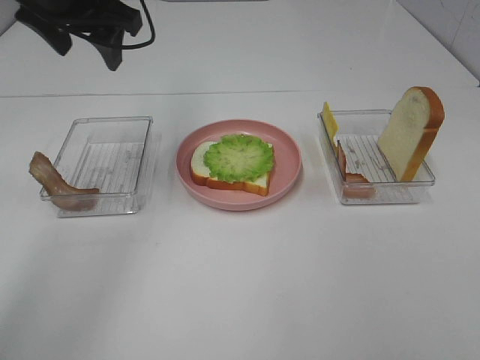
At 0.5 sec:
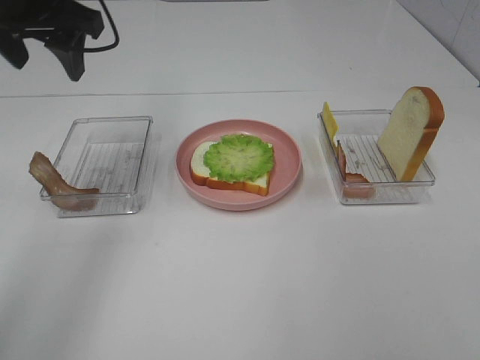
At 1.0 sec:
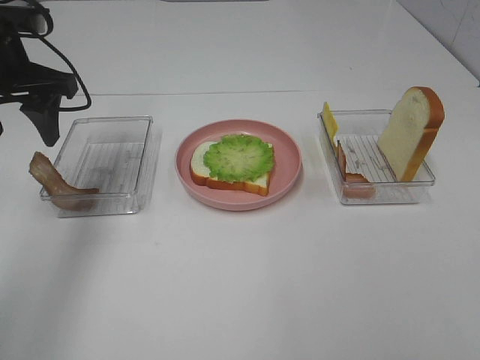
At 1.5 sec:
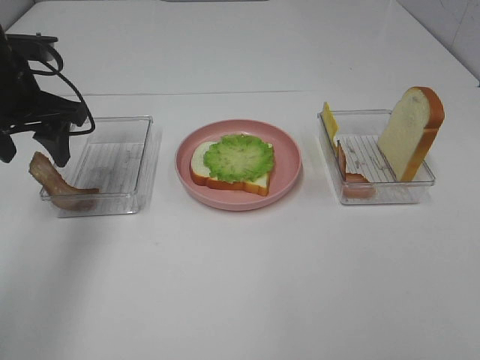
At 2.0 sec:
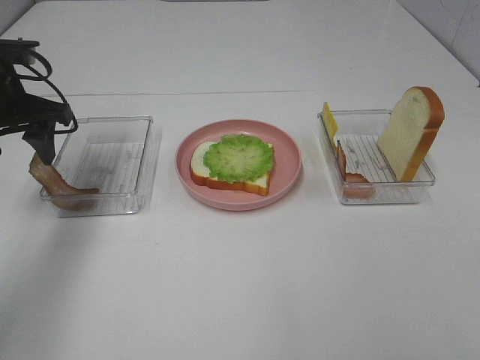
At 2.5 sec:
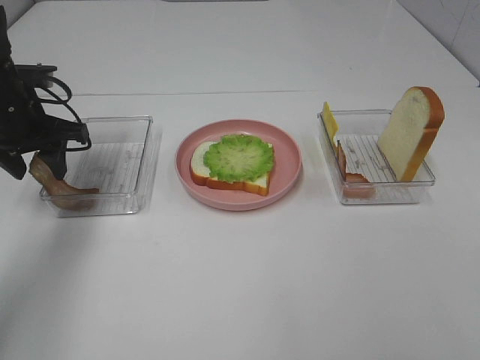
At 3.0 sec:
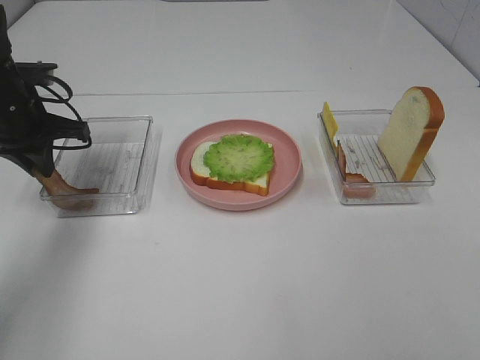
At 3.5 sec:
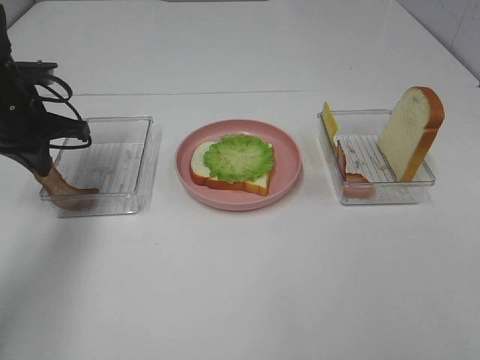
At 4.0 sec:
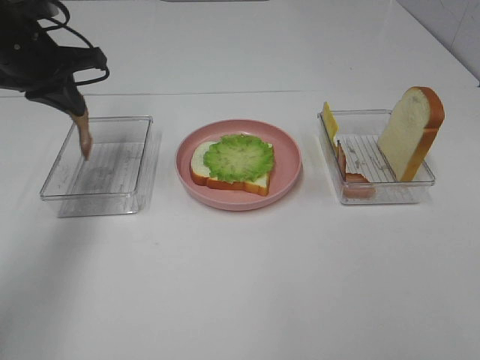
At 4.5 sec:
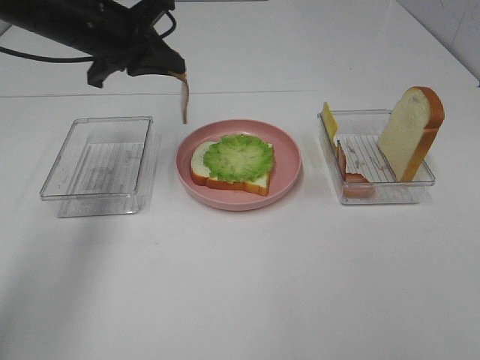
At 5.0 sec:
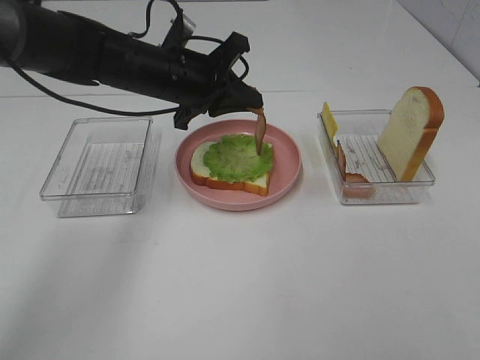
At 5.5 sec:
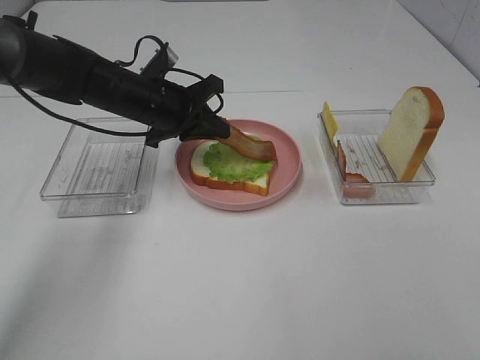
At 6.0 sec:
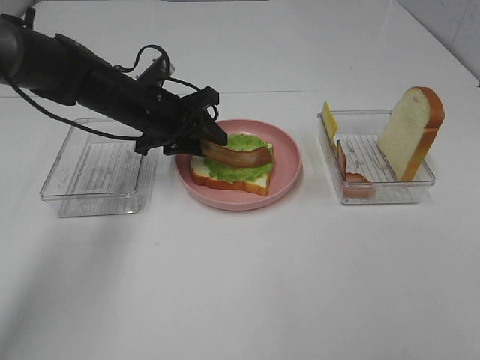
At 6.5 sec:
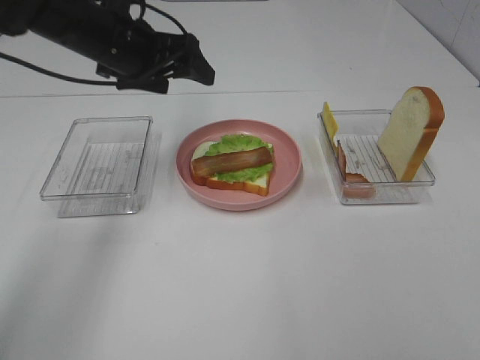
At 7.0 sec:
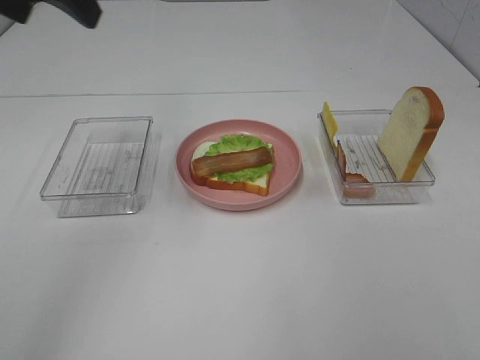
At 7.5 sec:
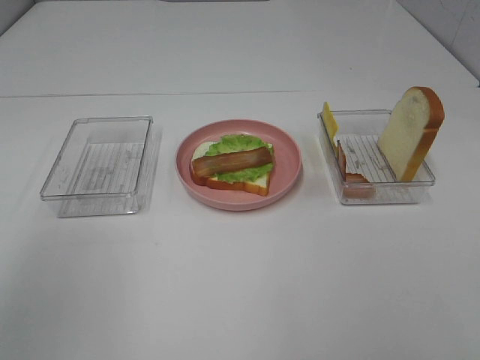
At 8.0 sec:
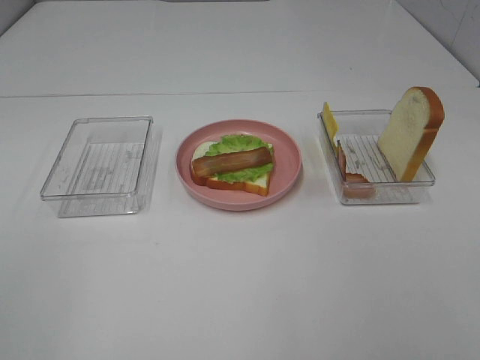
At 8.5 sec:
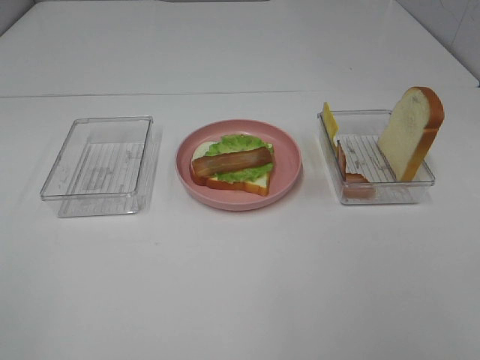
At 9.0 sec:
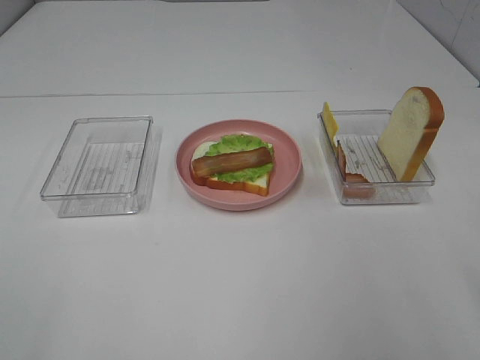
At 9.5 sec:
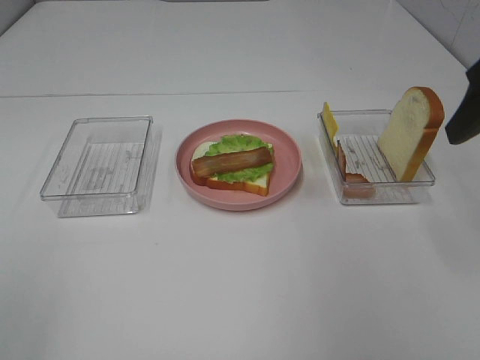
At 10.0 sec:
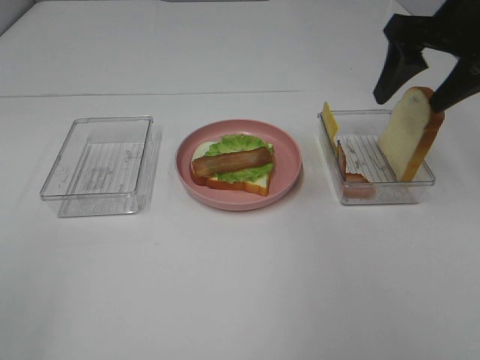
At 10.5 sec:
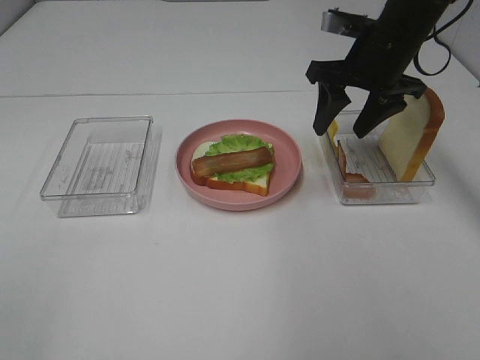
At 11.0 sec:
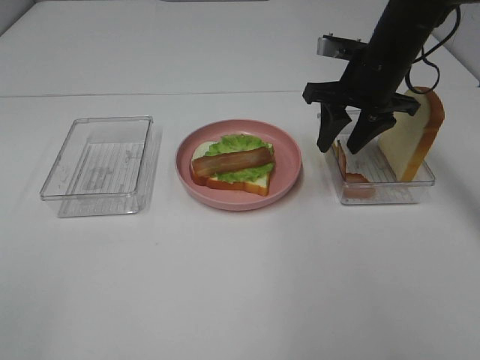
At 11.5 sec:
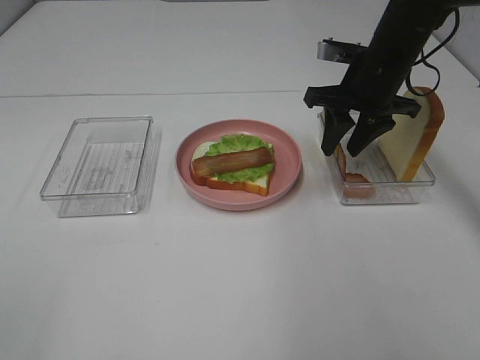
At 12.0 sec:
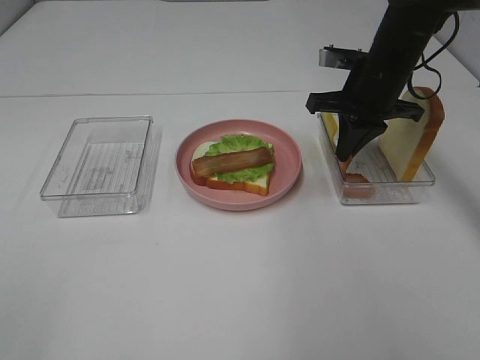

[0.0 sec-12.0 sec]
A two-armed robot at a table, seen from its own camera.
Task of the whole recording: Make sandwiches.
Step, 0.0 sec to 3.0 sec: Left hand:grab the bacon.
Step, 3.5 sec to 6.0 sec: Left hand:place bacon on lettuce slice.
Step, 6.5 sec to 12.0 sec: Right hand:grab the bacon.
0.0 sec to 2.0 sec: The left gripper moves downward and to the left, approximately 15 cm.
2.0 sec to 4.0 sec: The left gripper closes its fingers.
4.0 sec to 6.0 sec: The left gripper shifts about 15 cm to the right and downward, and opens up.
6.0 sec to 8.0 sec: The left gripper moves backward, upward and to the left, about 50 cm, and opens.
8.0 sec to 10.0 sec: The right gripper moves forward, about 35 cm.
10.0 sec to 12.0 sec: The right gripper goes some 15 cm downward, forward and to the left, and closes up.

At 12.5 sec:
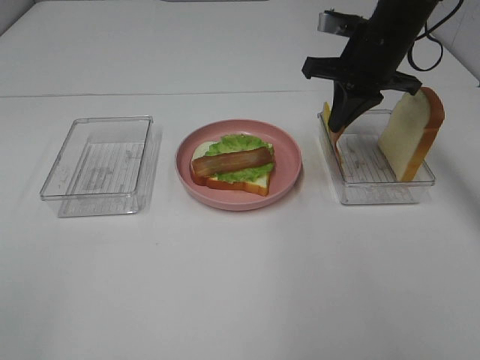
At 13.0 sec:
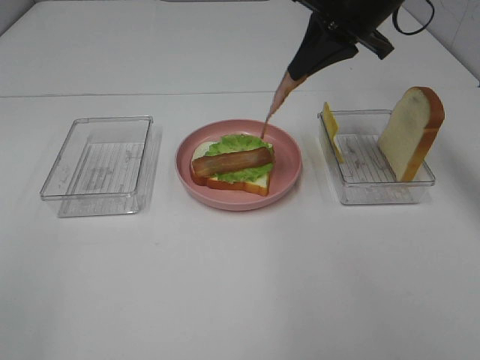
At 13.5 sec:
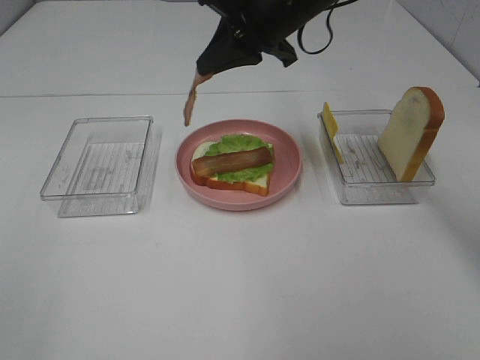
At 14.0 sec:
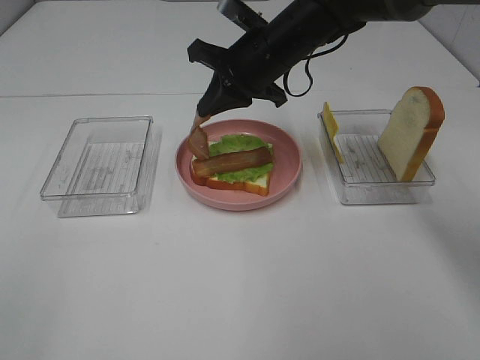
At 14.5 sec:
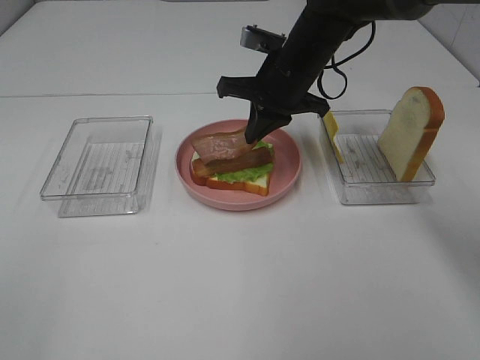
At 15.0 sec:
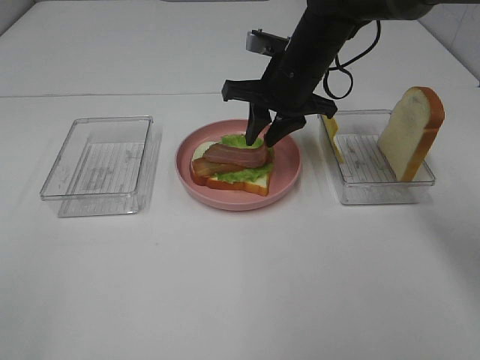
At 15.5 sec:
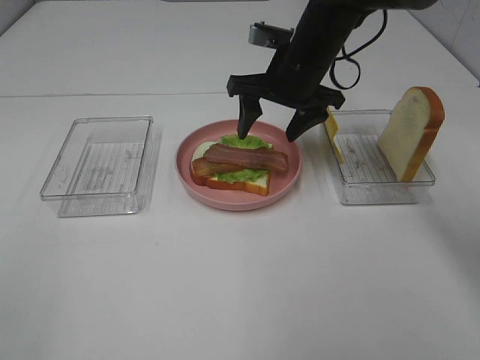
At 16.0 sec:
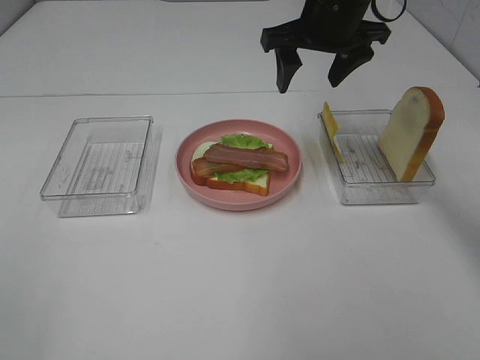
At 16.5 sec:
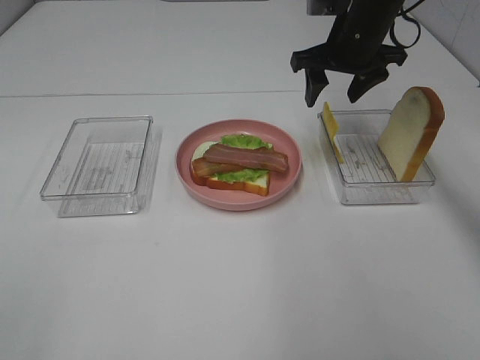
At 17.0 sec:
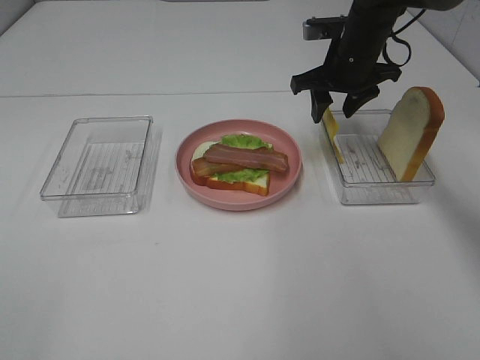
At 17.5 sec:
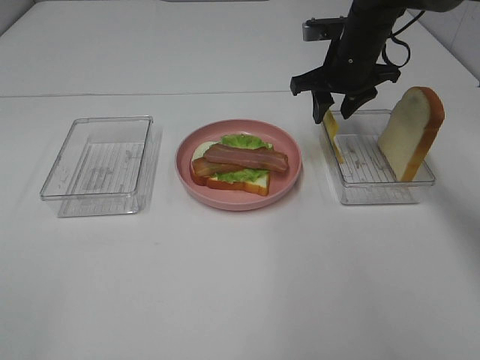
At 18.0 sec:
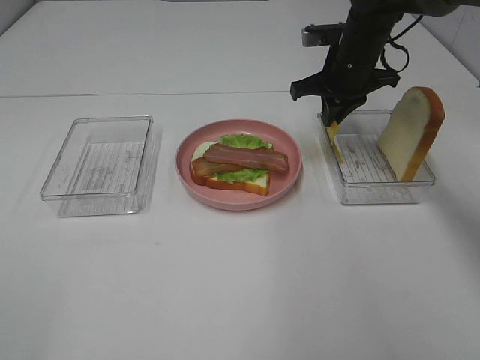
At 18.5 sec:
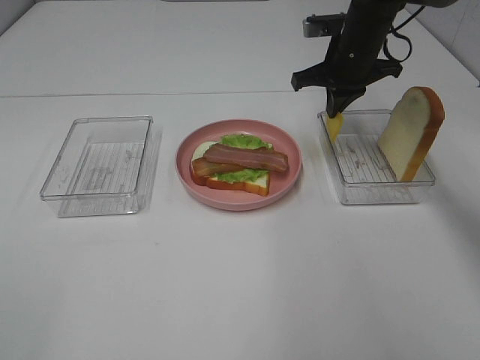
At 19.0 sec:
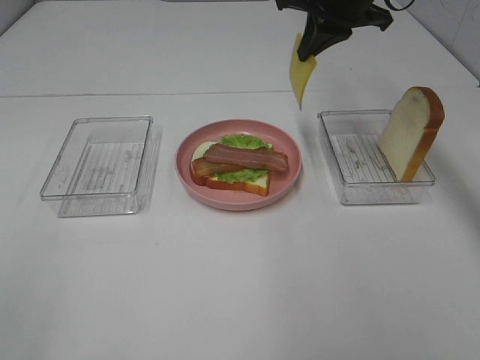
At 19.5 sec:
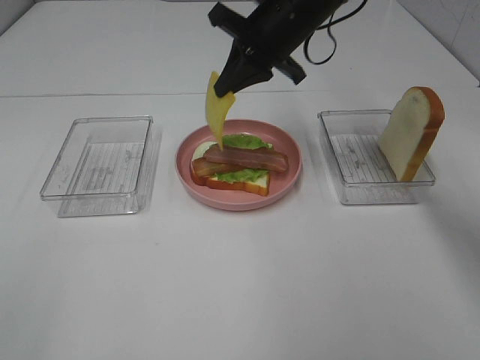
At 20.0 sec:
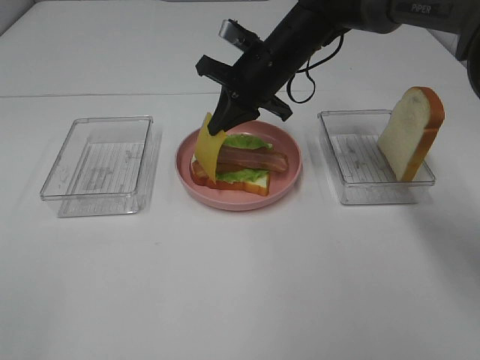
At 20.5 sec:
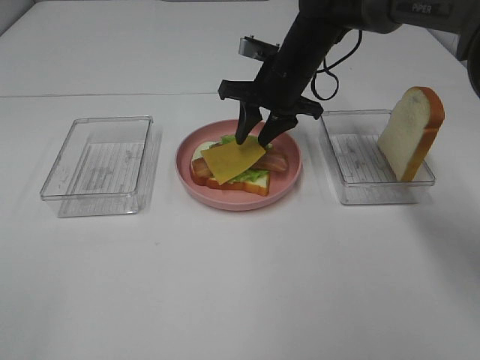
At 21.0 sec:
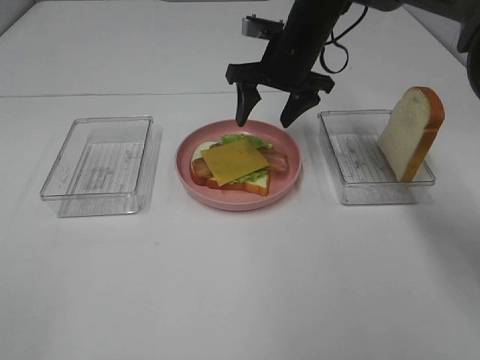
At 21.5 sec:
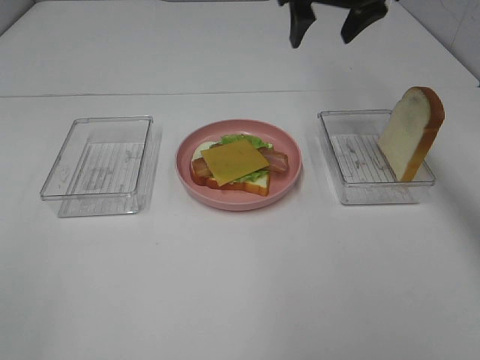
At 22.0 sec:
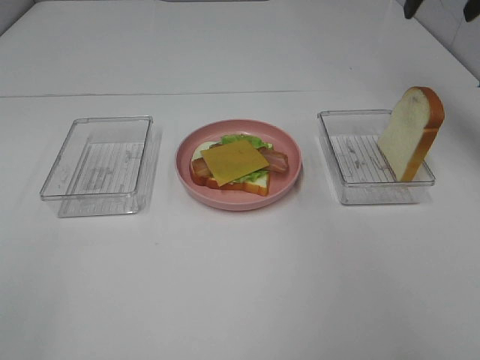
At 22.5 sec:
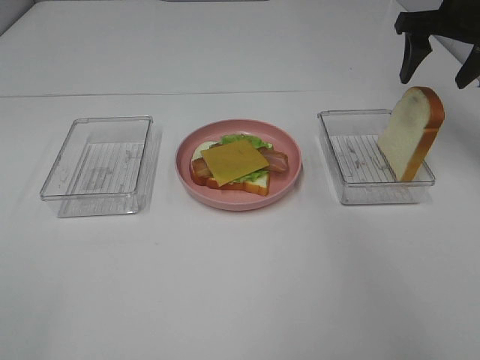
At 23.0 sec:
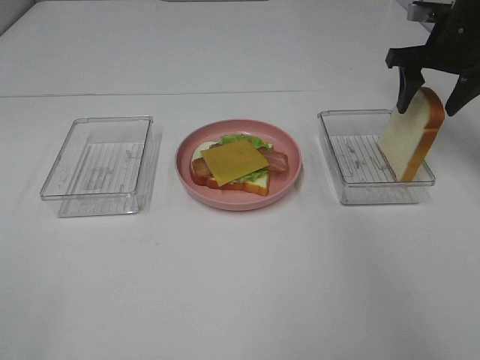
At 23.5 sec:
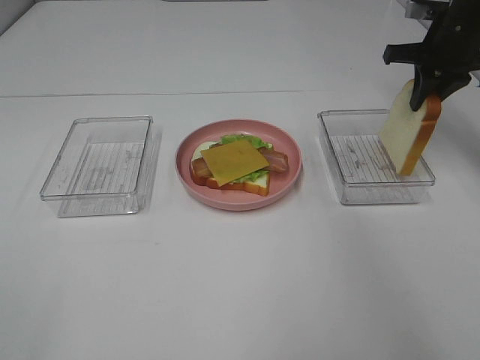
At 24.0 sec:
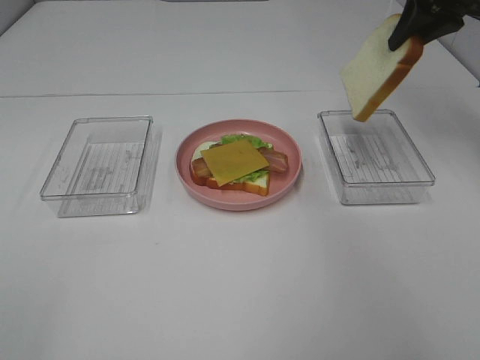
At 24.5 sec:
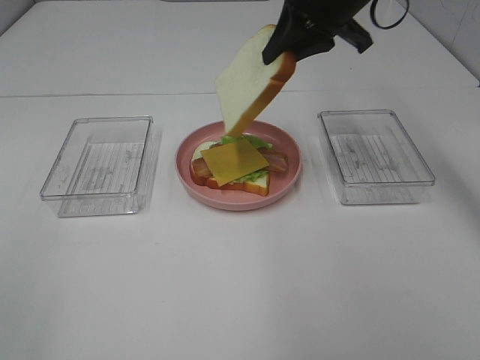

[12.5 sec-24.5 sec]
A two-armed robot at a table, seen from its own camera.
Task of the whole recording: Make sandwiches.
Step, 12.5 sec to 15.5 sec: Right hand:place bacon on bacon.
Step, 16.0 sec to 18.0 sec: Right hand:grab the cheese slice.
Step, 18.5 sec to 21.0 sec: Right hand:place the cheese slice on top of the bacon.
Step, 21.5 sec to 23.0 sec: Right hand:grab the bread slice.
12.5 sec to 14.5 sec: The right gripper shifts about 10 cm to the left.
14.5 sec to 16.5 sec: The right gripper moves to the right, roughly 10 cm, and opens its fingers.
16.5 sec to 18.5 sec: The right gripper closes its fingers.
18.5 sec to 20.5 sec: The right gripper goes roughly 10 cm to the left, travels upward and back again, some 10 cm each way, and opens up.
20.5 sec to 22.5 sec: The right gripper is displaced to the right and upward by roughly 25 cm, and opens its fingers.
22.5 sec to 24.5 sec: The right gripper heads to the left, covering about 15 cm, and closes its fingers.

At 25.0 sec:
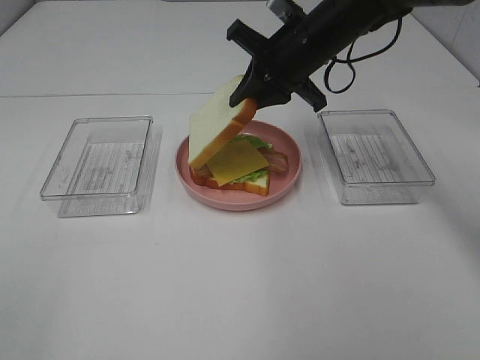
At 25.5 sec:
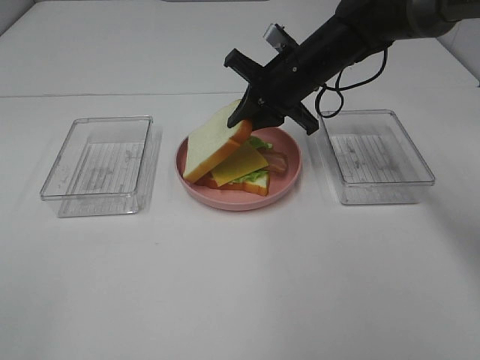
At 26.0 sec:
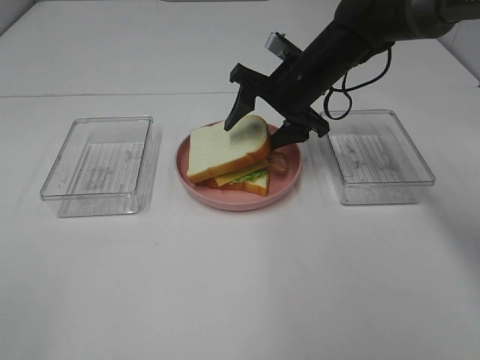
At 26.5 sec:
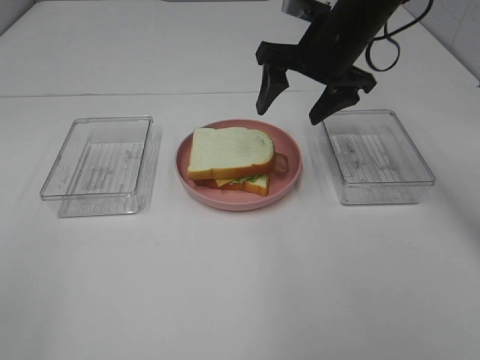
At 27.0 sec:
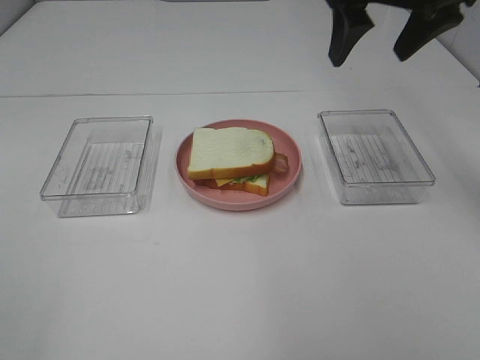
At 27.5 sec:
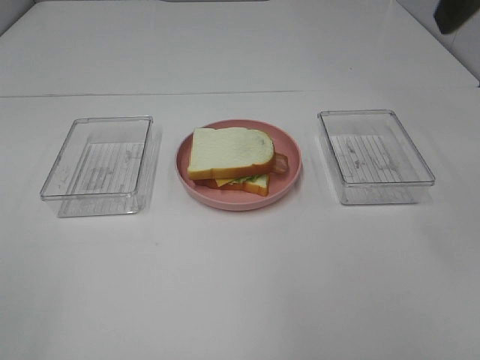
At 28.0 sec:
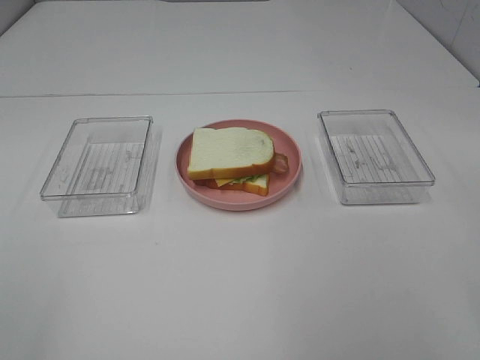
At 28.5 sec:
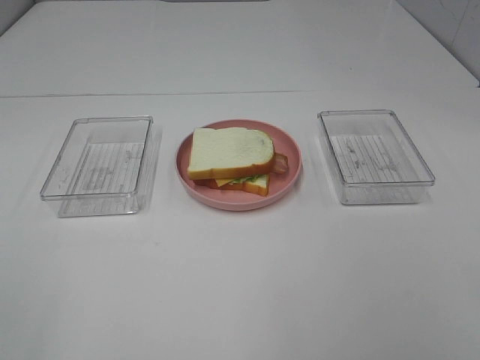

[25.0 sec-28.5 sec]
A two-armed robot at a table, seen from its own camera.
Task of the whole recording: Make sandwiches.
25.0 sec to 27.0 sec: The right gripper moves upward, backward and to the right, some 15 cm, and opens its fingers.
27.0 sec to 28.5 sec: The right gripper heads backward, covering about 35 cm.
